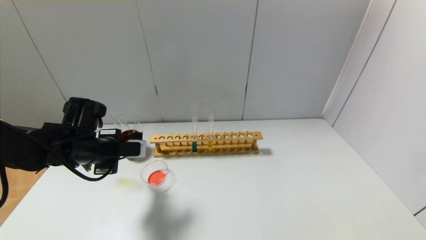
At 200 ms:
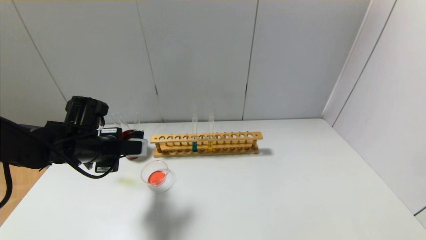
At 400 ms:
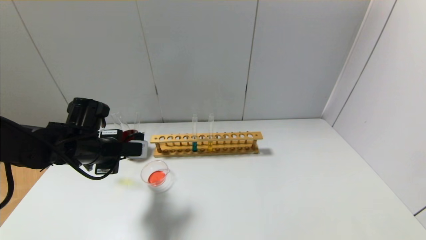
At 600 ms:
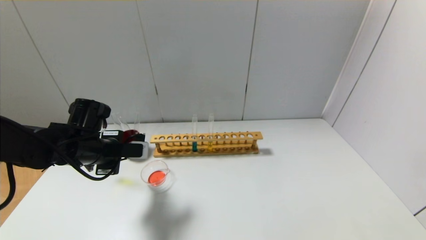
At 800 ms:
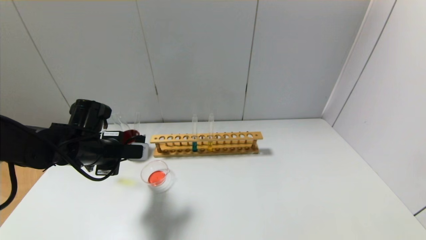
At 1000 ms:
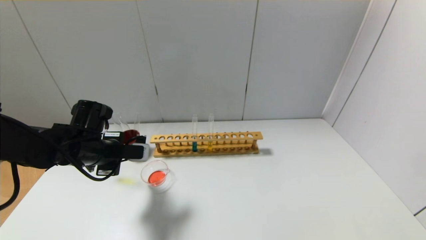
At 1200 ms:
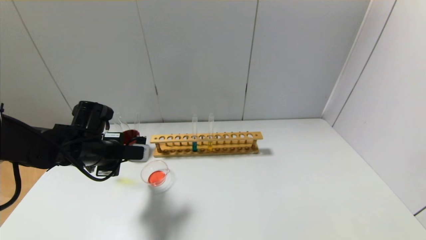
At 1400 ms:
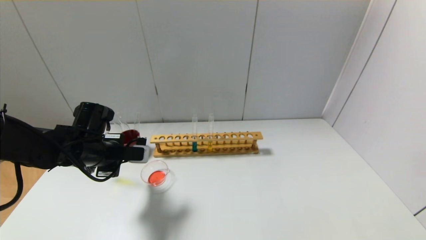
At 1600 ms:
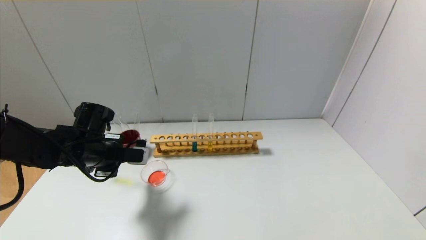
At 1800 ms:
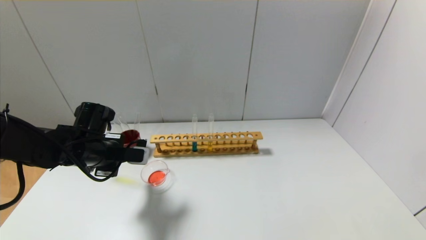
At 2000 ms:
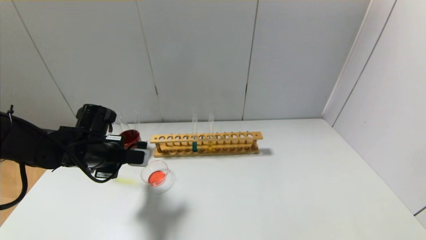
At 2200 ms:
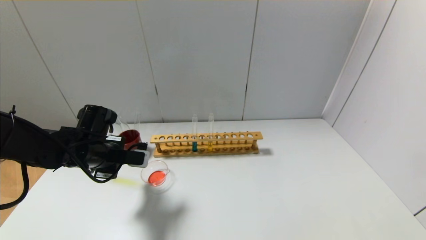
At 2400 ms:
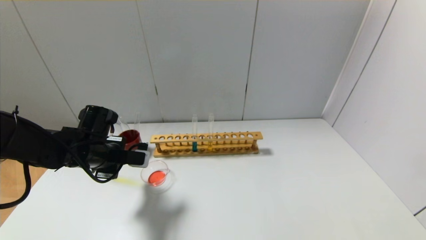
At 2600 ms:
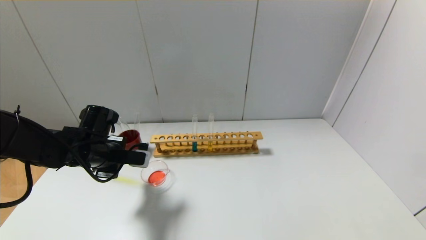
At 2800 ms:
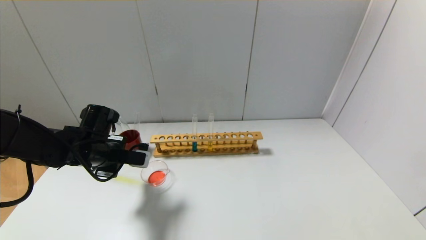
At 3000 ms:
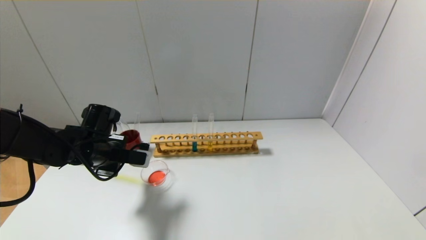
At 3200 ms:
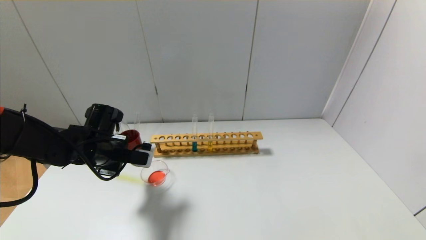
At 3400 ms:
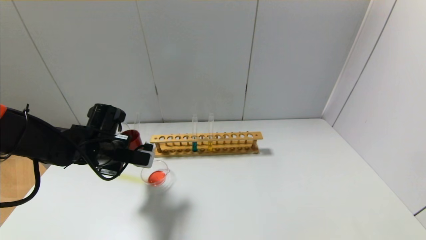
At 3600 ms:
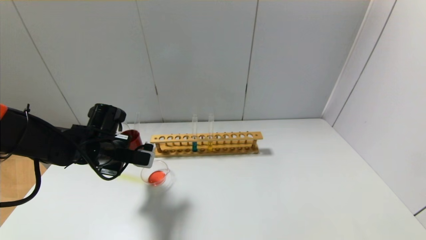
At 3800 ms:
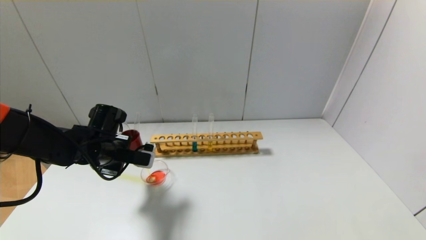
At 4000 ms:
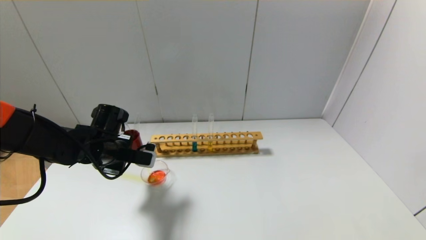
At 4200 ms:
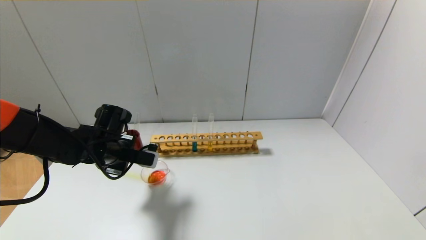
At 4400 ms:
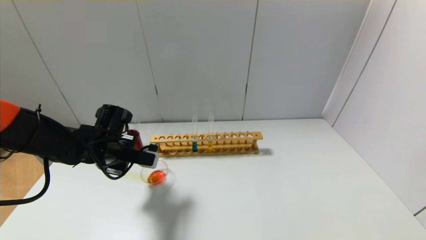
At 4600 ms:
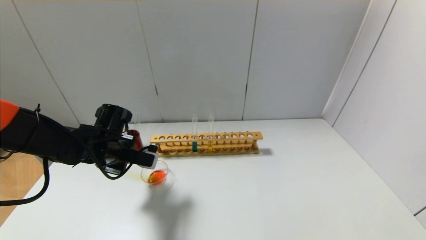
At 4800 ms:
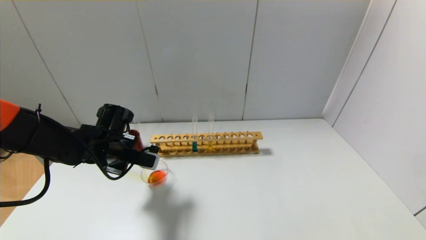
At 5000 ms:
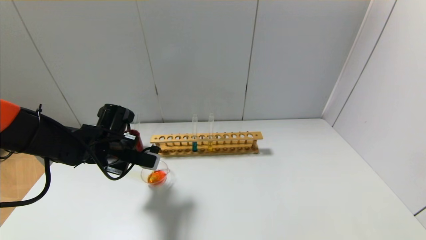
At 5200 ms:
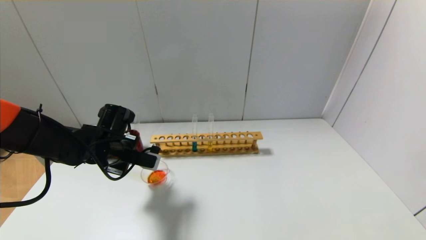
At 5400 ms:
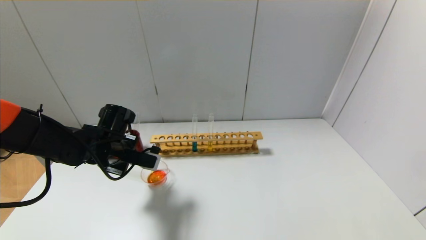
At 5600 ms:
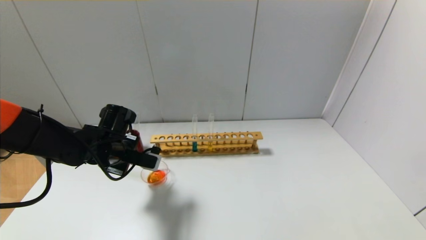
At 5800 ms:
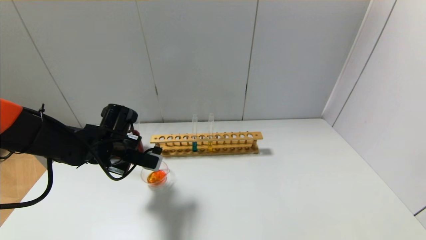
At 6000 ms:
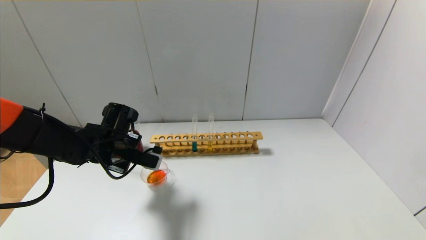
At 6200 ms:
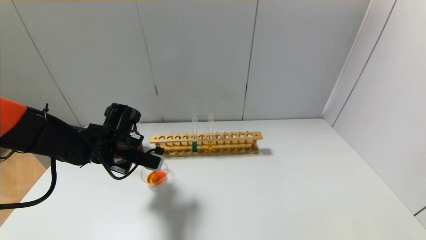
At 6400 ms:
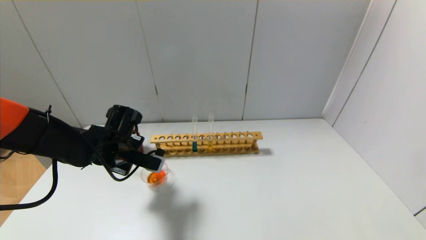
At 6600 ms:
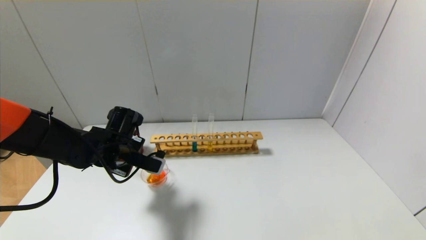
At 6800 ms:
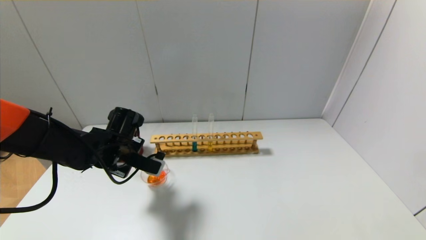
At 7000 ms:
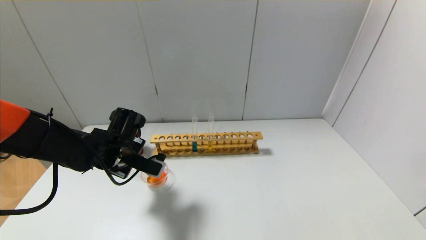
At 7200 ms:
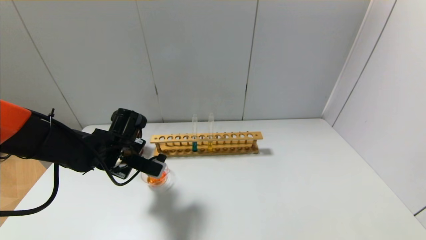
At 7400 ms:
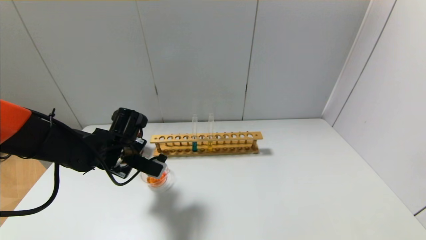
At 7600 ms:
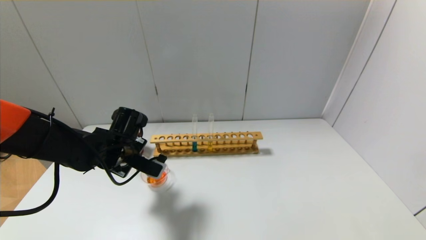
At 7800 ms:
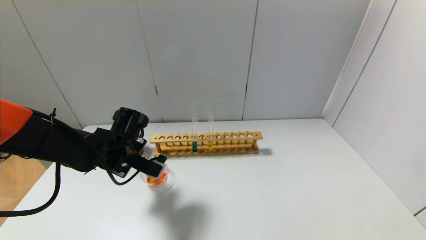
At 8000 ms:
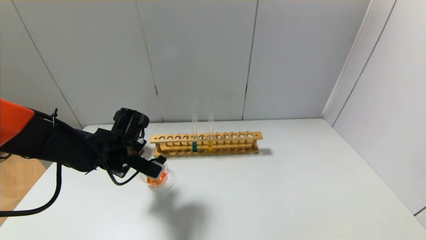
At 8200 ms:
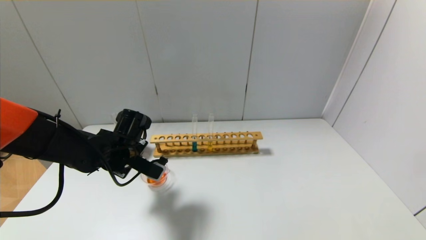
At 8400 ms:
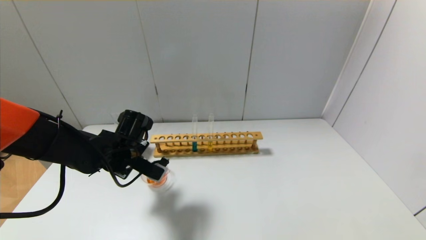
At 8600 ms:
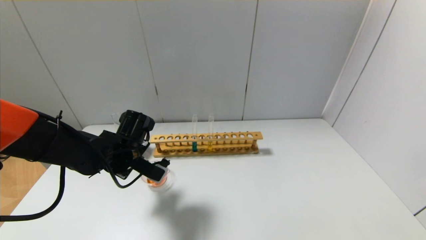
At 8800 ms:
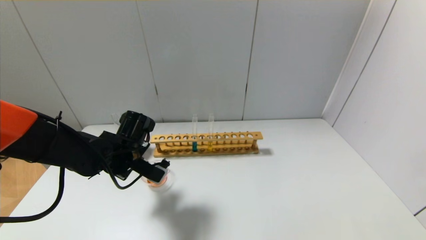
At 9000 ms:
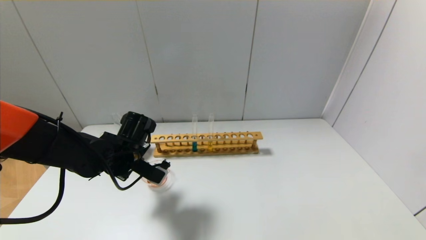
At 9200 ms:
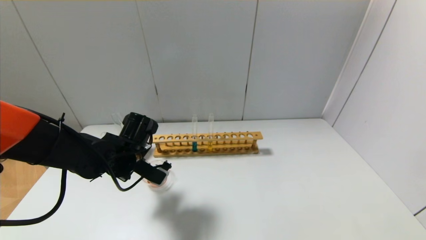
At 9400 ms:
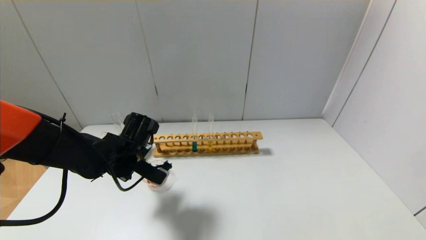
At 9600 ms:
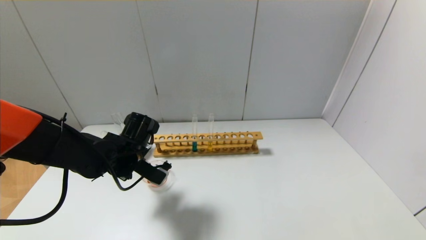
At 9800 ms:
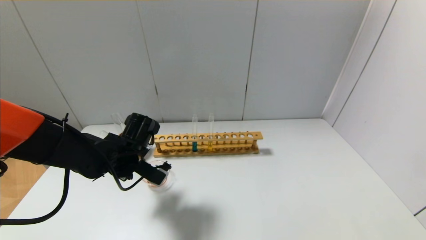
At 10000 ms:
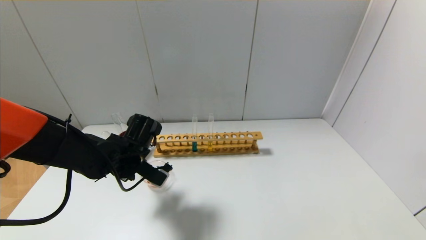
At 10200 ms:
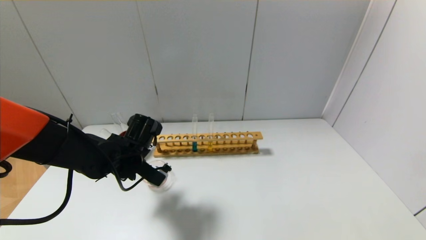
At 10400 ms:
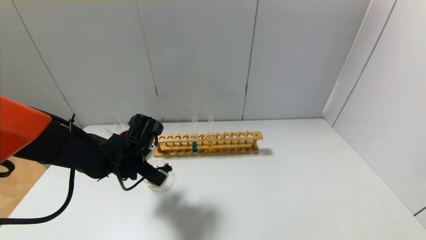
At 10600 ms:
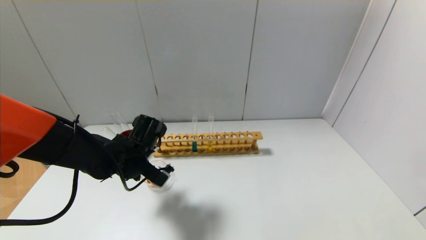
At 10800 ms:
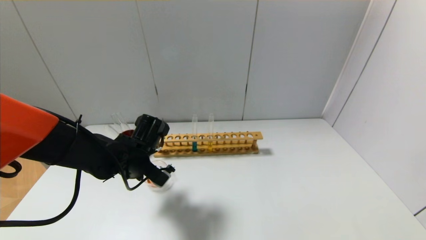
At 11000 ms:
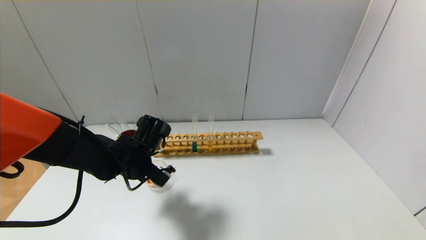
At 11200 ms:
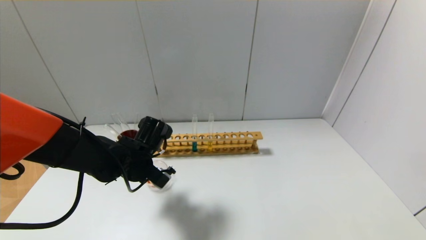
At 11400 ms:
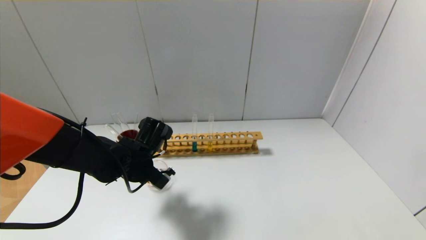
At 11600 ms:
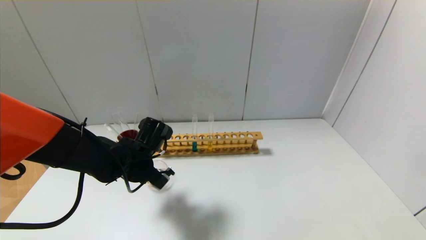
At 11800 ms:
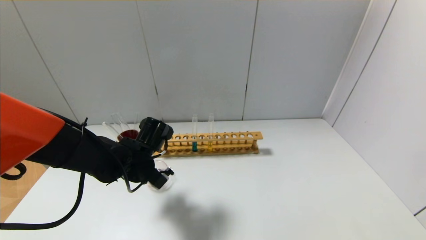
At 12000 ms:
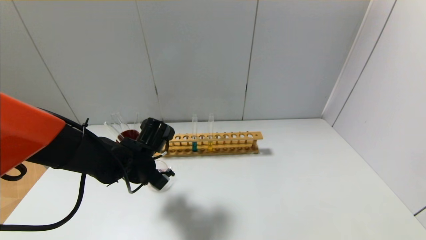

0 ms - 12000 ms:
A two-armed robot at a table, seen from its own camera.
0 ms - 4400 ms: The grippers move only a little.
4400 ms - 7600 ms: There are only small adjustments of the grippers.
7600 ms - 10400 ms: The grippers make only small movements.
10400 ms - 12000 ms: The grippers stay close to where they were, moving slightly.

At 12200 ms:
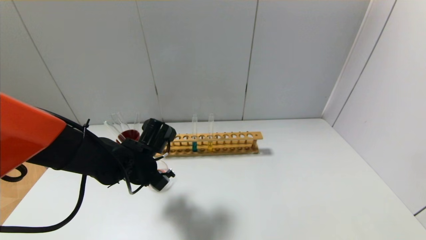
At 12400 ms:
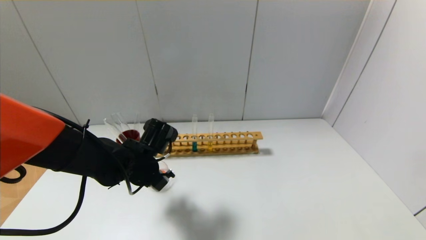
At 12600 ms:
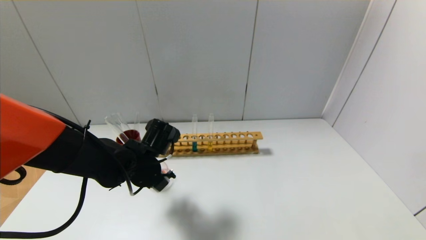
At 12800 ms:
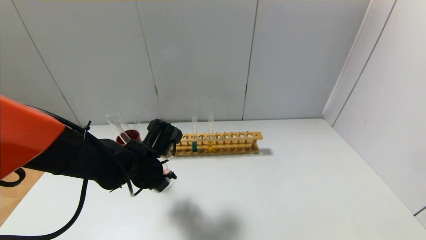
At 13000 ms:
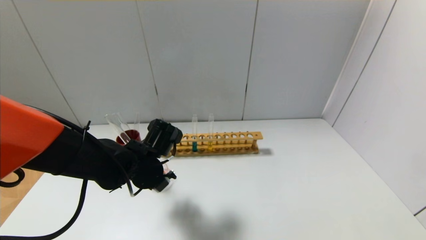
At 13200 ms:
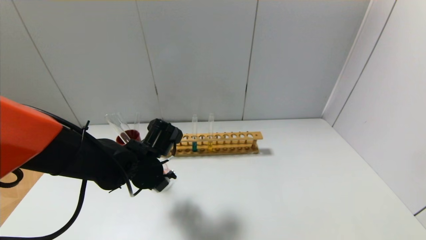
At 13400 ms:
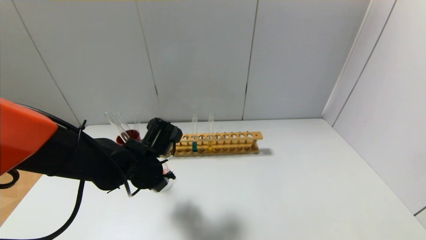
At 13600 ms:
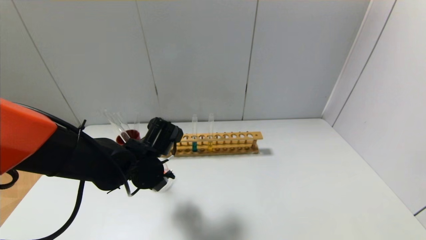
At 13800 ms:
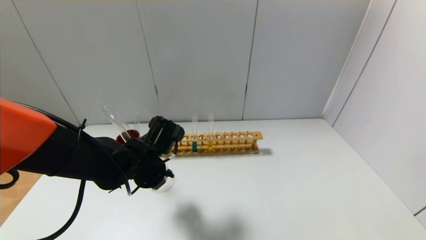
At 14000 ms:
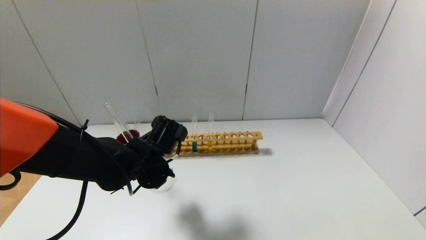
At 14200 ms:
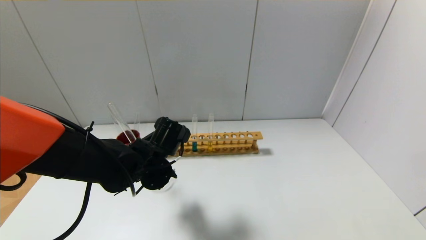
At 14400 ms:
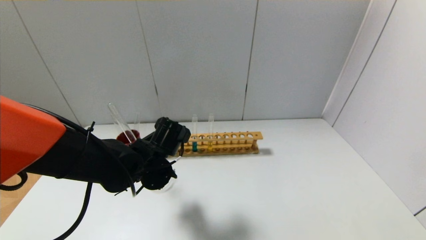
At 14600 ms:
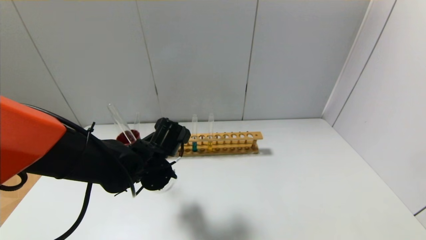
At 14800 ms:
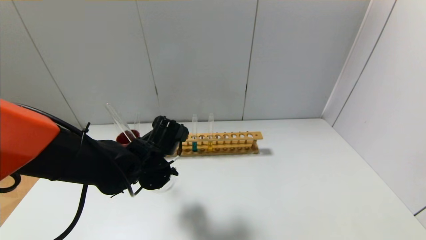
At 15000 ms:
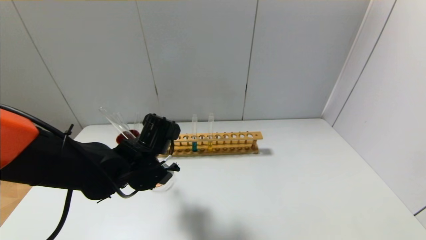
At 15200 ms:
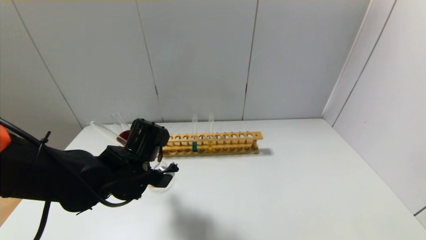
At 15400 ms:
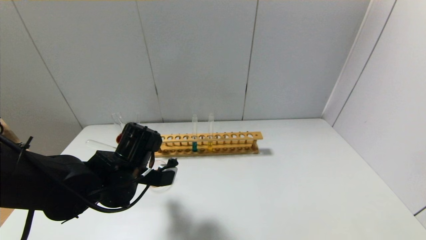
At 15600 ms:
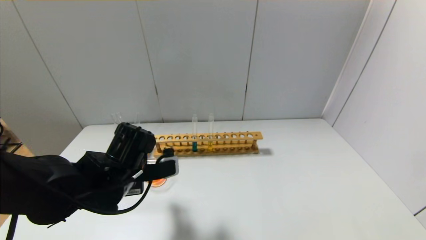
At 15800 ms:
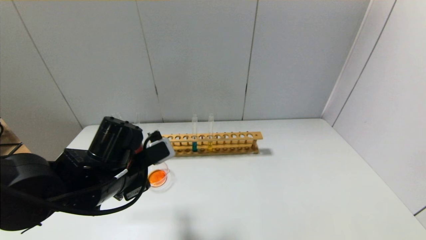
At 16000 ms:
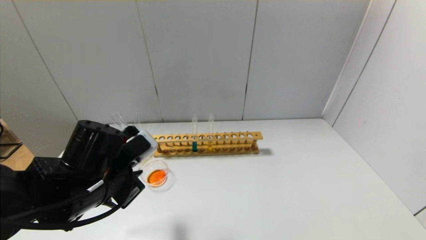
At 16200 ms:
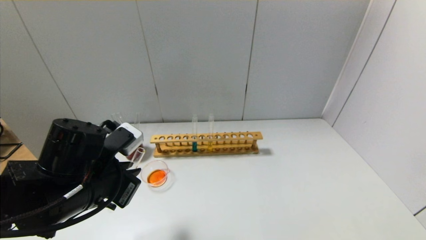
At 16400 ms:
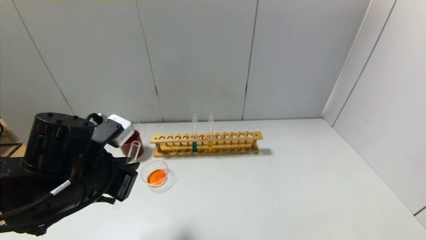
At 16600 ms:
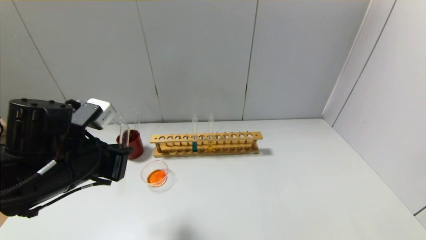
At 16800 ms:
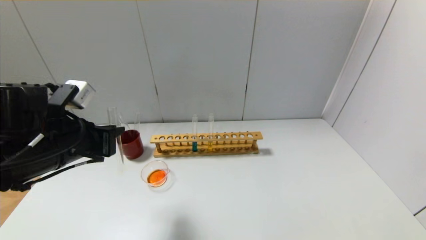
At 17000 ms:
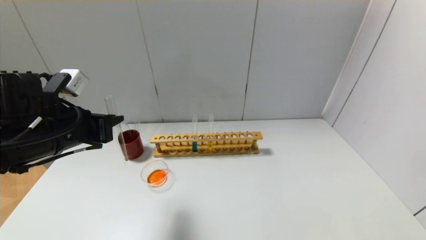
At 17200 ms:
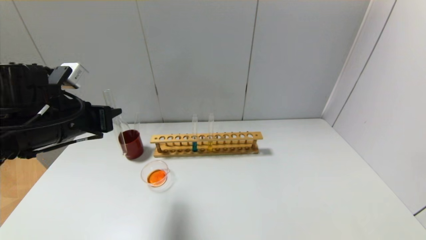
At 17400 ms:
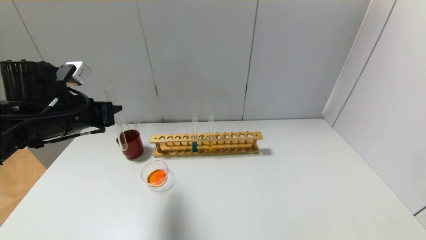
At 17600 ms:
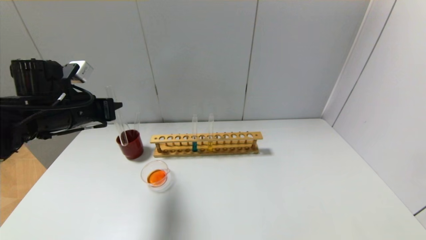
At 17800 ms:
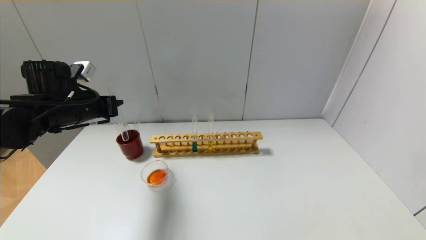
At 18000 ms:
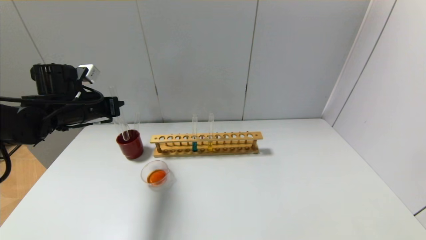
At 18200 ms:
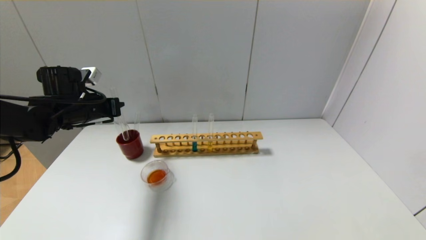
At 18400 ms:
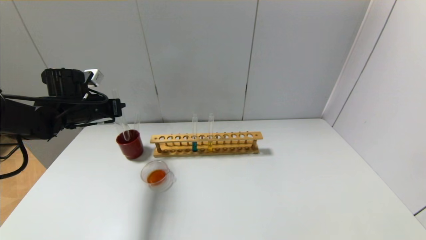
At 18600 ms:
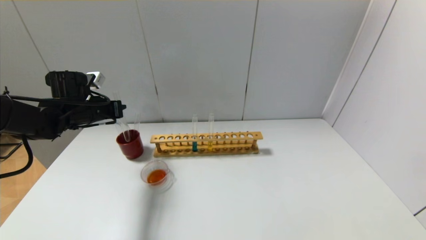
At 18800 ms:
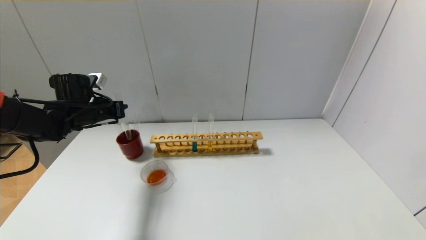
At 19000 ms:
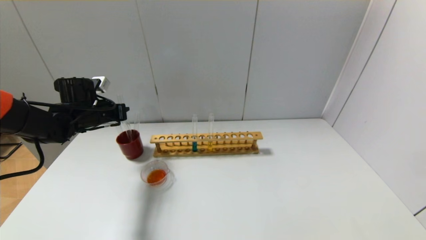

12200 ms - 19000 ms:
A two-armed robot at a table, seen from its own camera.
Step, 12200 ms - 15200 ms: Pour the yellow reagent into the graduated cylinder with the left gripper.
12200 ms - 15000 ms: The grippers make only small movements.
15000 ms - 16200 ms: The left gripper travels backward and to the left by roughly 10 cm.
16200 ms - 17600 ms: The left gripper travels forward, to the left and upward by some 15 cm.
17600 ms - 19000 ms: The left gripper heads forward and downward, covering roughly 10 cm.
